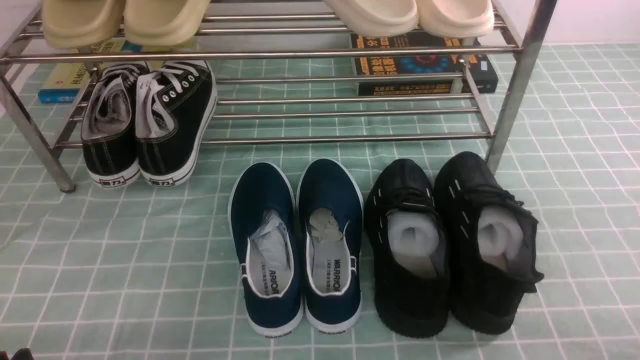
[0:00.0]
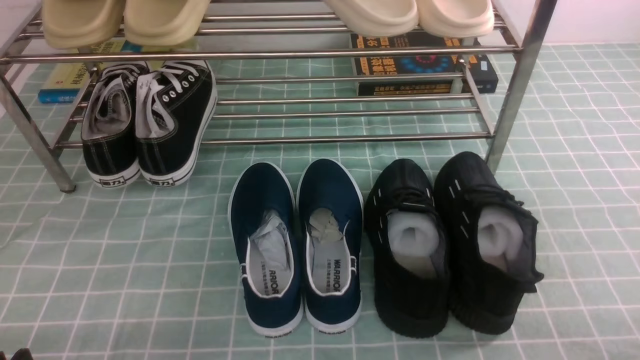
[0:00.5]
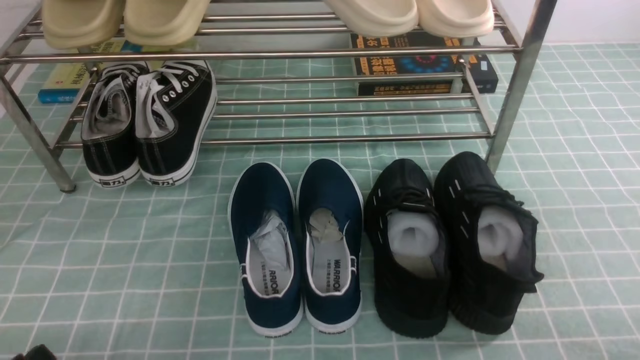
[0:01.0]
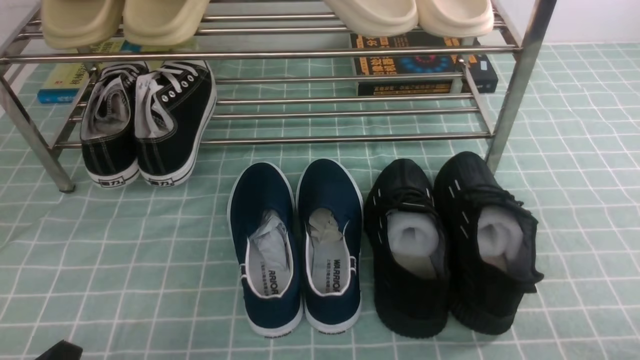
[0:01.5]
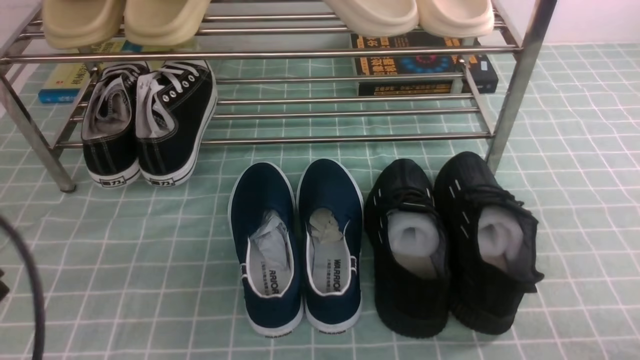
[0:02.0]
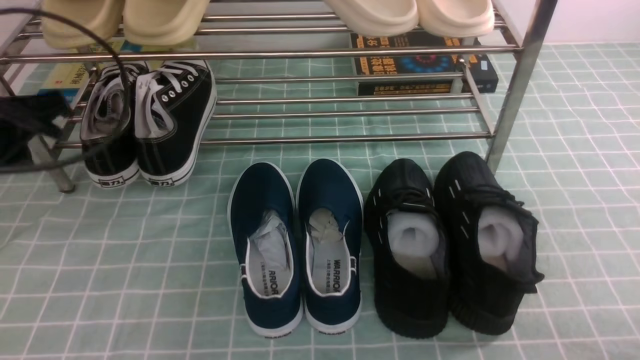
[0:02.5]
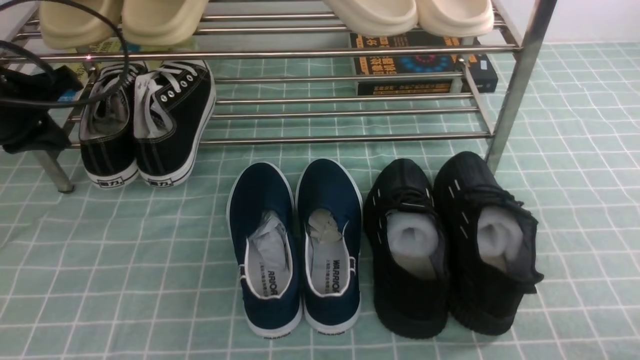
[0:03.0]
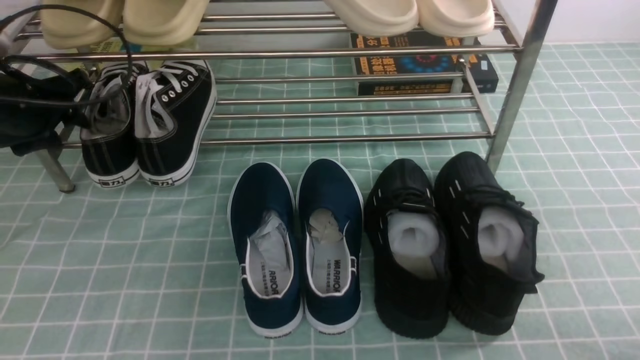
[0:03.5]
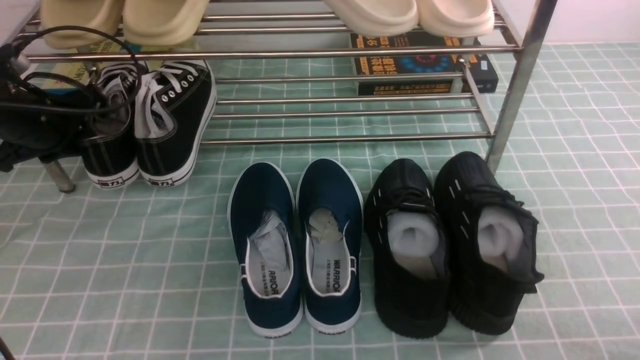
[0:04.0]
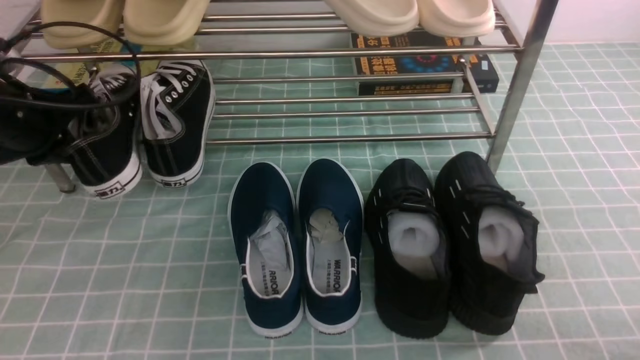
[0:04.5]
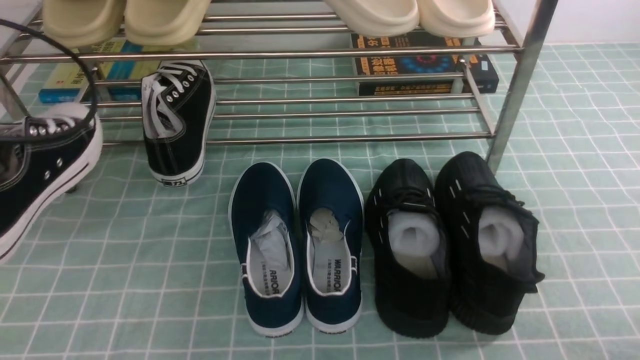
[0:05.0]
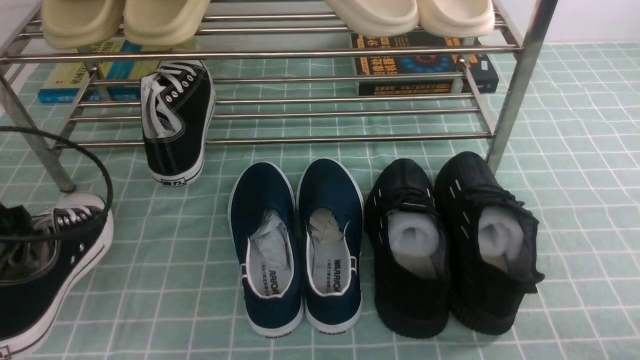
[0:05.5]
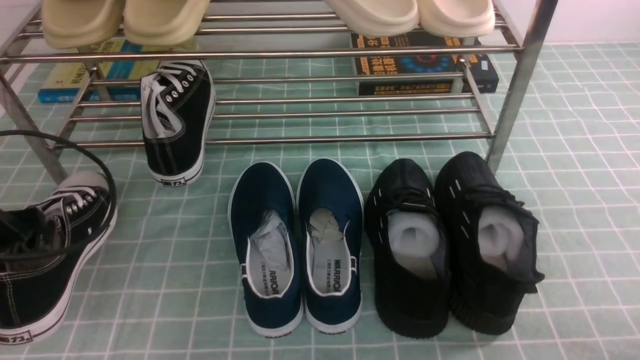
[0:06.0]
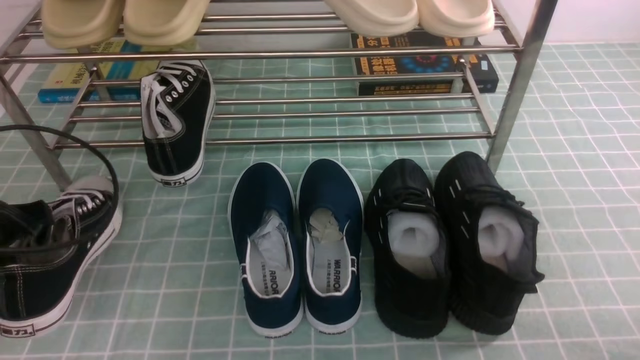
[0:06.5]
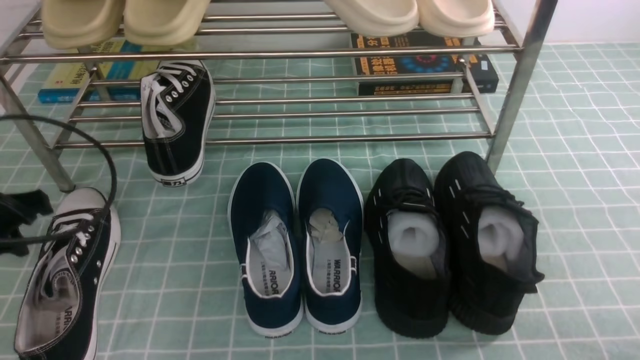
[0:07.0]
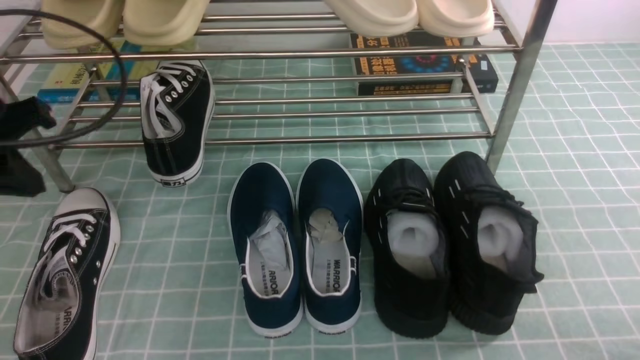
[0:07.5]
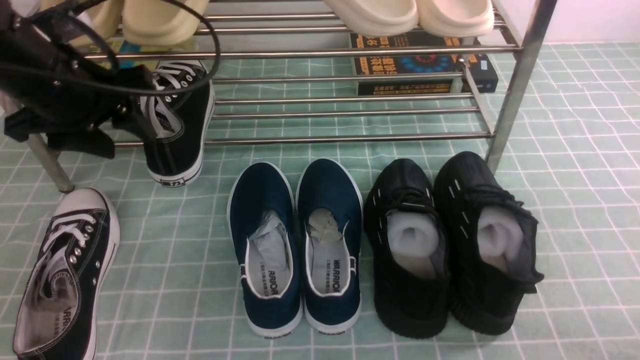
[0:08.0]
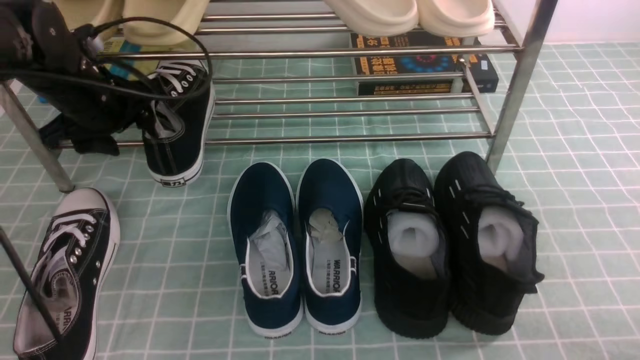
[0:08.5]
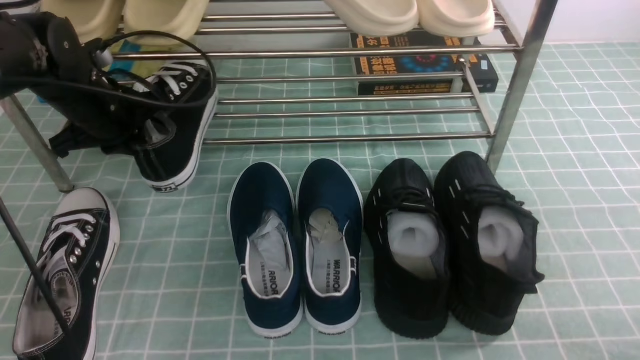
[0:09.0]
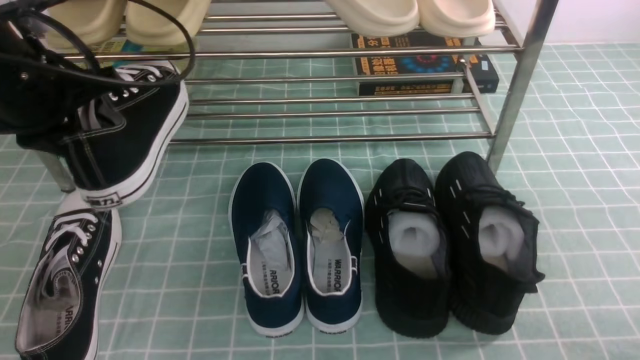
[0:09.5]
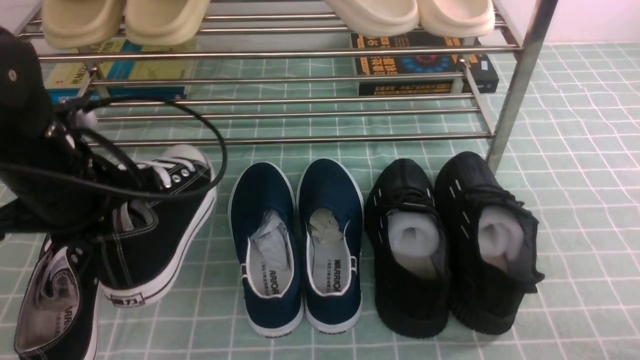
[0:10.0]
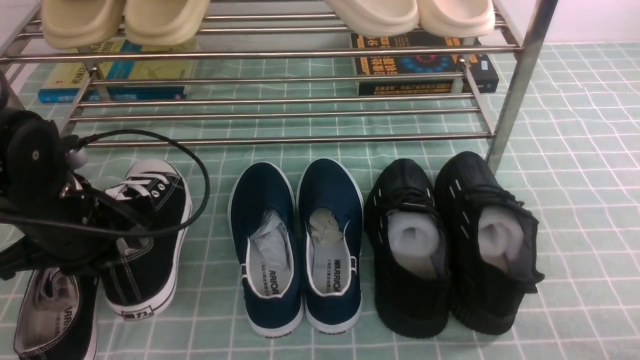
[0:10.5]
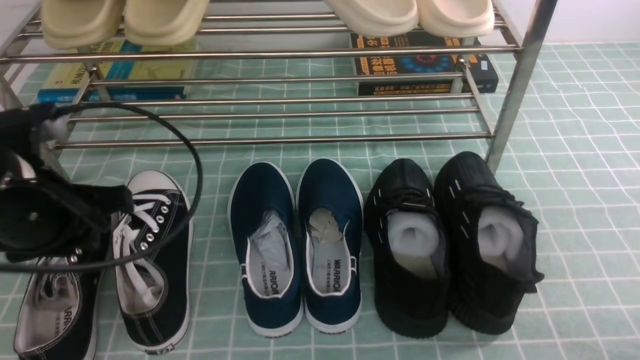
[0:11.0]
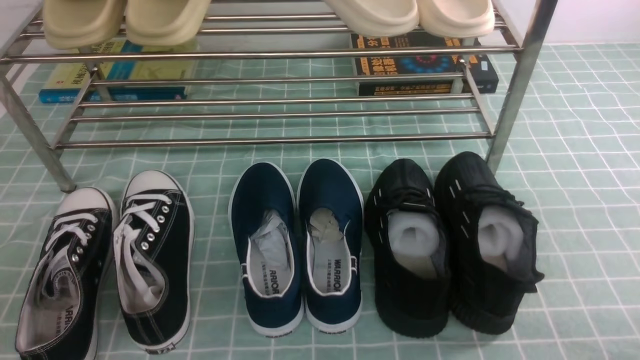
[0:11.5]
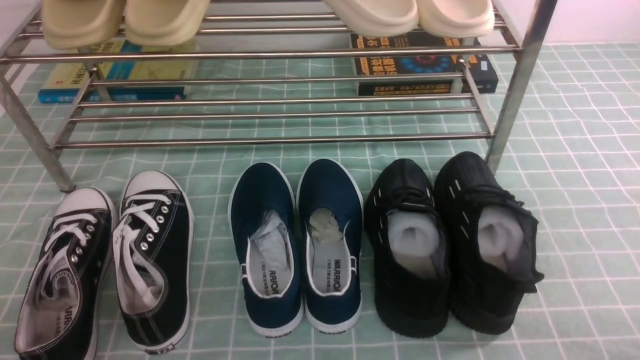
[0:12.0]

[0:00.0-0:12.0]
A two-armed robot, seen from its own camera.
Step, 0:00.0 to 0:03.5: use the left arm to clamp a shoe on the left side of the shoe rack.
Step, 0:04.0 to 0:06.5: Use your left arm to remove the clamped shoe from the shoe rack and put it down.
Step, 0:07.0 to 0:08.5: use the left arm to clamp a shoe on the left side of the shoe rack.
Step, 0:09.0 to 0:11.0: Use your left arm to remove the clamped shoe from the shoe rack and put it down.
0:00.0 to 0:02.0: The left gripper shifts about 10 cm upward, and closes up.
0:02.0 to 0:04.0: The left gripper goes roughly 30 cm forward, and opens its fingers.
0:04.0 to 0:06.0: The left gripper heads backward, covering approximately 15 cm, and closes its fingers.
0:06.0 to 0:08.0: The left gripper is displaced forward, to the right and upward by about 15 cm, and opens up.
0:08.0 to 0:10.0: The left gripper moves backward, some 5 cm, and closes.
0:10.0 to 0:12.0: The left gripper is displaced backward by about 25 cm.

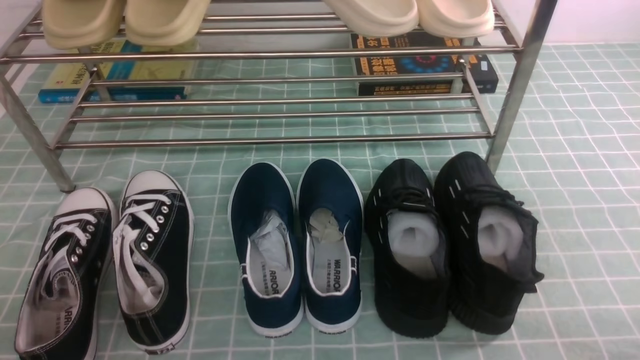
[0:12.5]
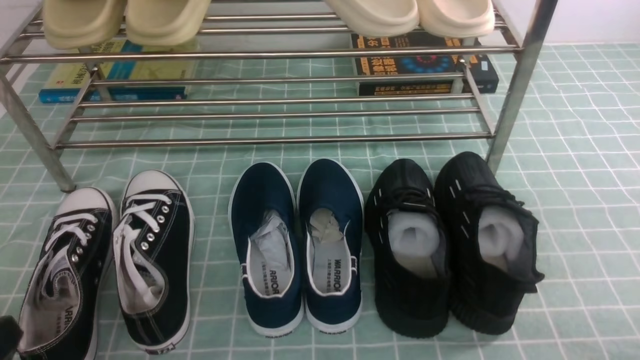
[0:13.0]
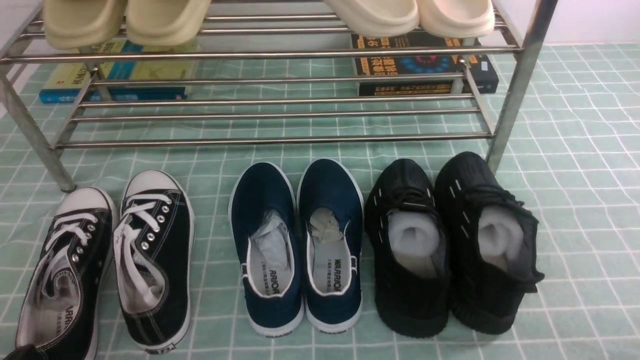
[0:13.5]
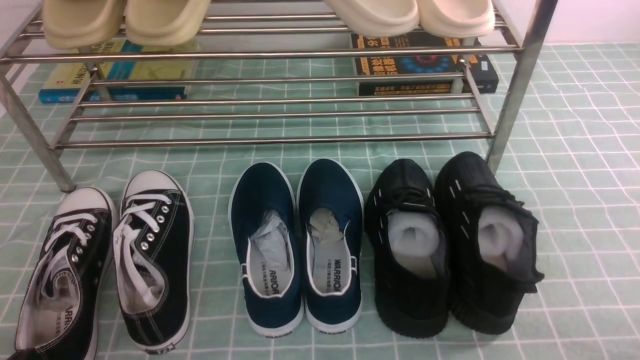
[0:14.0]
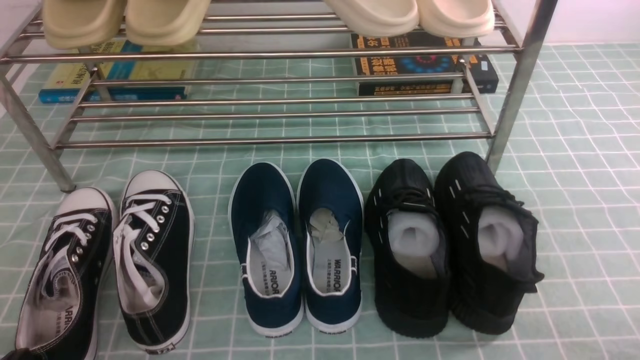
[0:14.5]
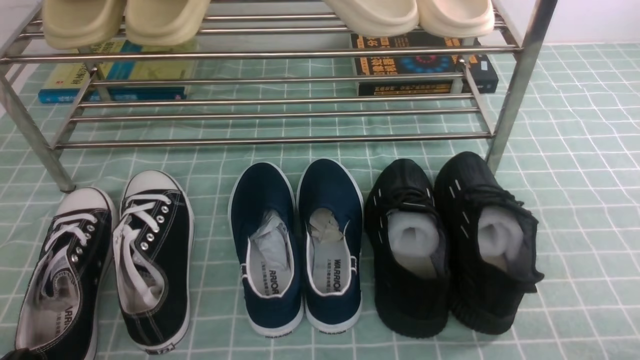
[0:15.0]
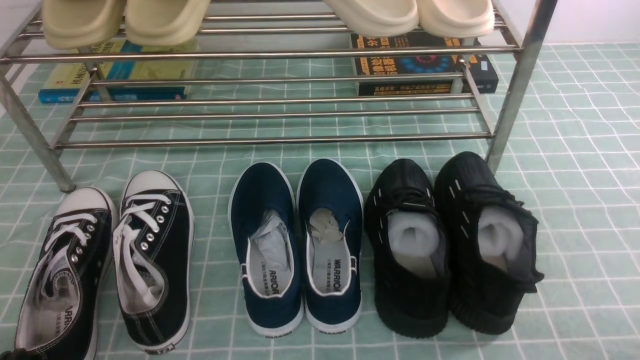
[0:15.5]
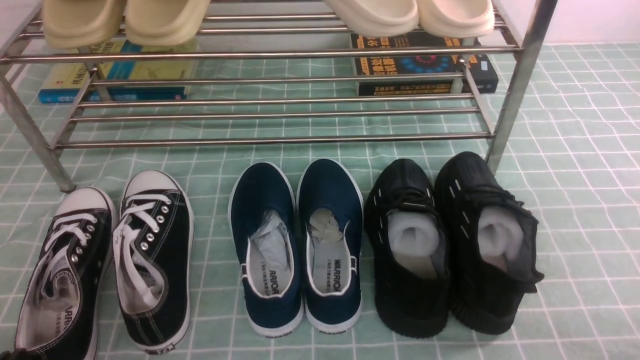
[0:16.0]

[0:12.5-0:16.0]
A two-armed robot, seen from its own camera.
0:14.5 to 0:16.0: Neither gripper changes place.
